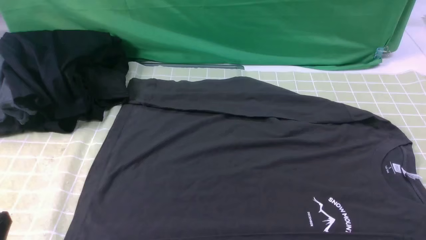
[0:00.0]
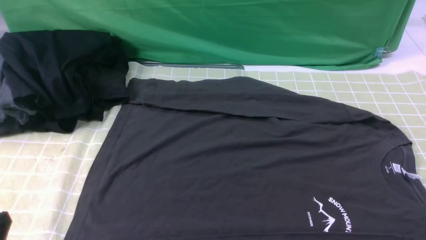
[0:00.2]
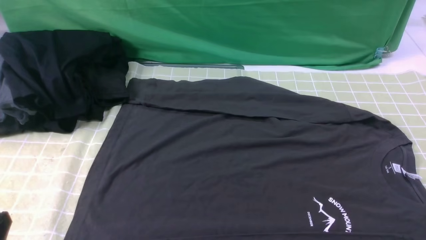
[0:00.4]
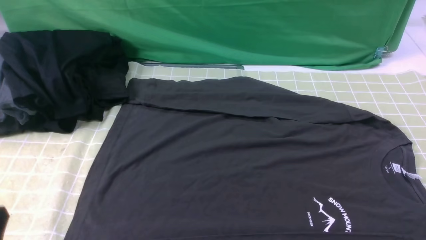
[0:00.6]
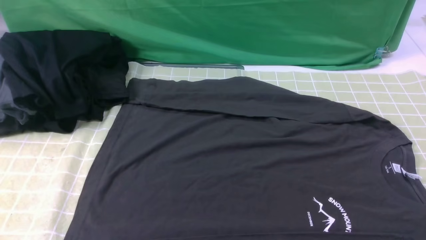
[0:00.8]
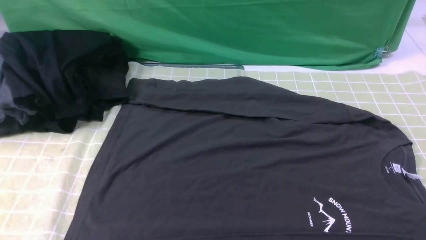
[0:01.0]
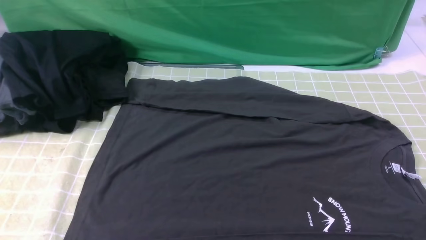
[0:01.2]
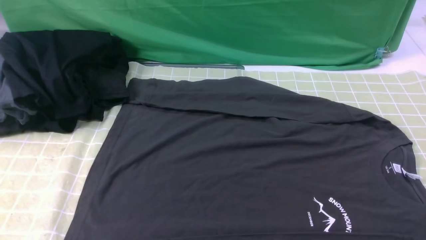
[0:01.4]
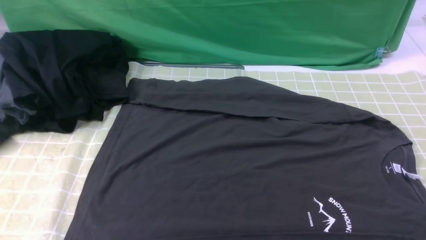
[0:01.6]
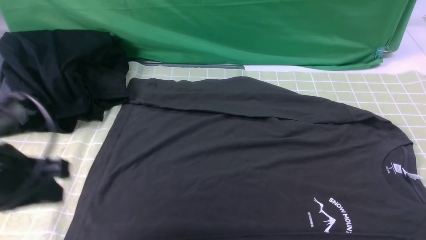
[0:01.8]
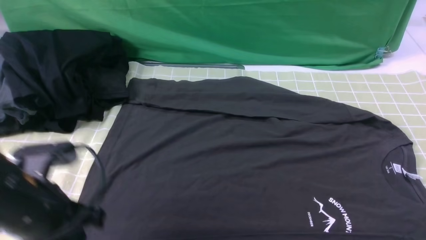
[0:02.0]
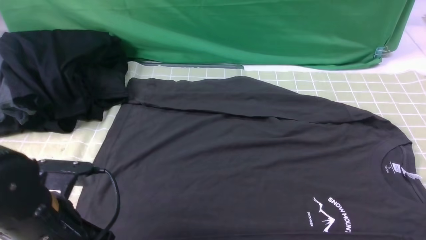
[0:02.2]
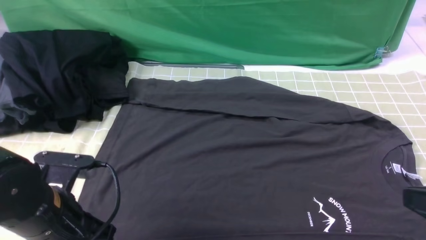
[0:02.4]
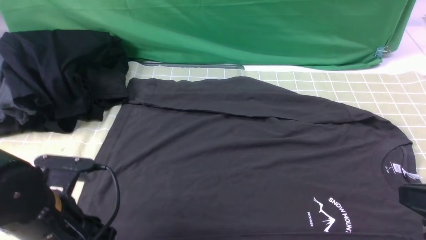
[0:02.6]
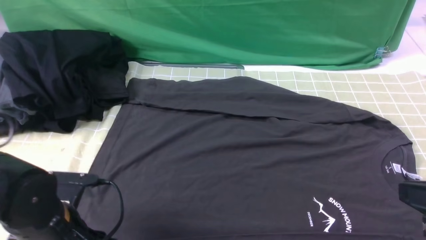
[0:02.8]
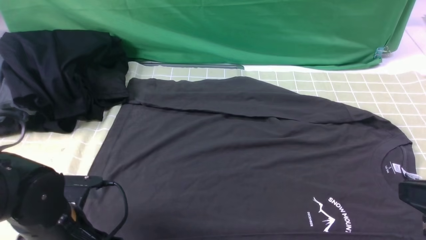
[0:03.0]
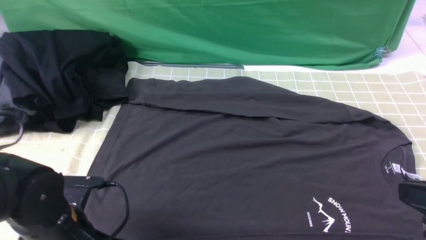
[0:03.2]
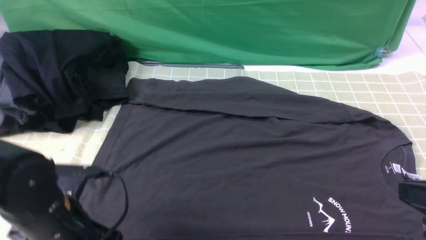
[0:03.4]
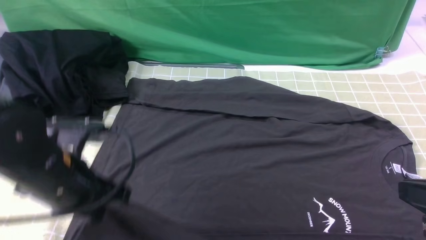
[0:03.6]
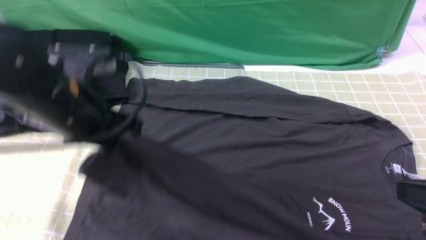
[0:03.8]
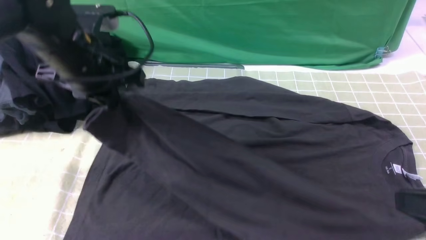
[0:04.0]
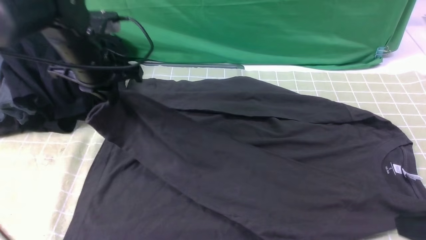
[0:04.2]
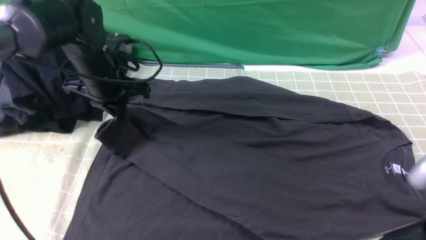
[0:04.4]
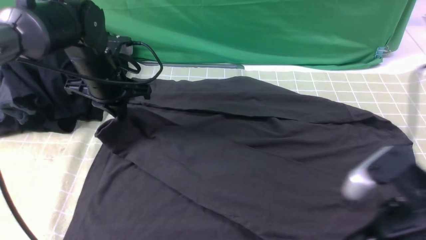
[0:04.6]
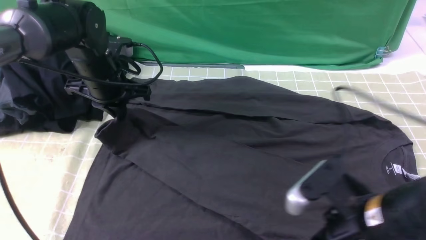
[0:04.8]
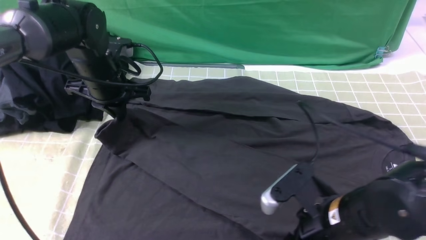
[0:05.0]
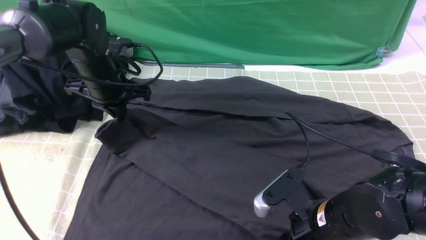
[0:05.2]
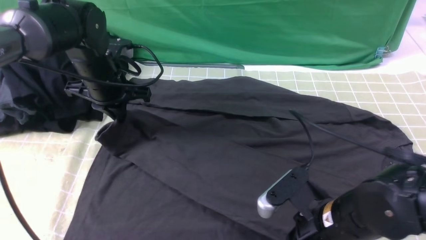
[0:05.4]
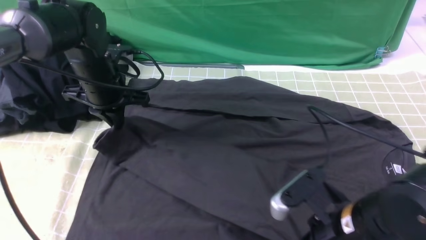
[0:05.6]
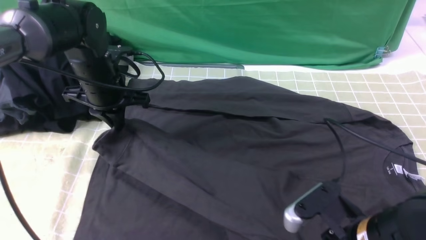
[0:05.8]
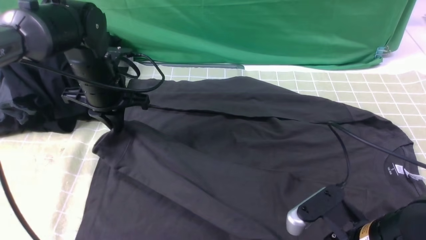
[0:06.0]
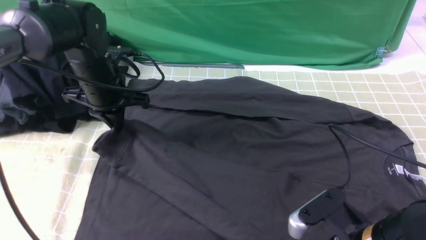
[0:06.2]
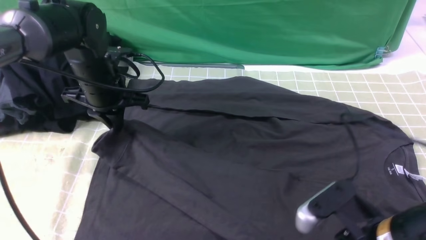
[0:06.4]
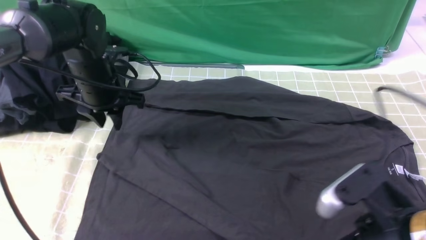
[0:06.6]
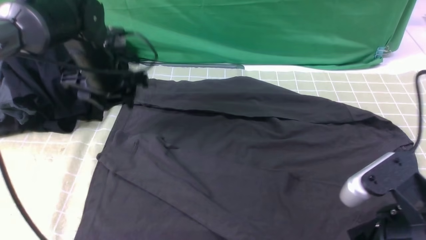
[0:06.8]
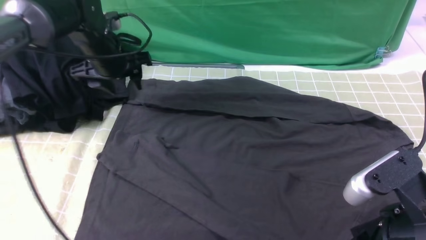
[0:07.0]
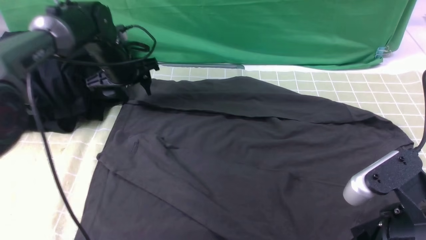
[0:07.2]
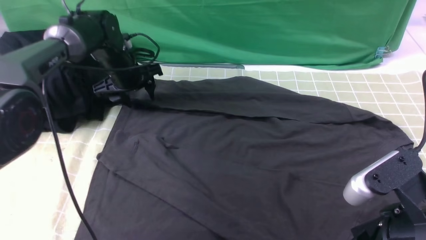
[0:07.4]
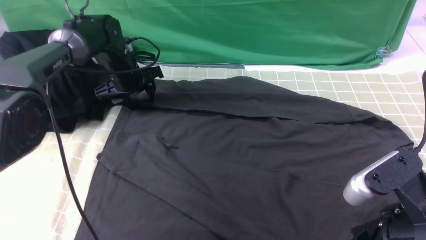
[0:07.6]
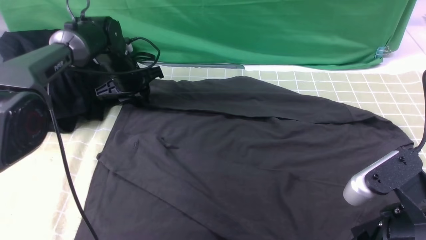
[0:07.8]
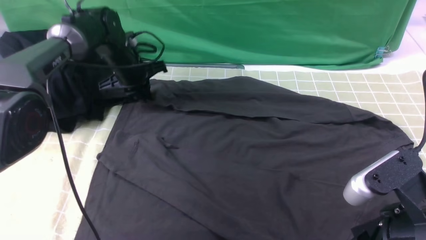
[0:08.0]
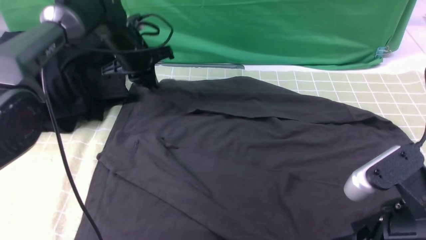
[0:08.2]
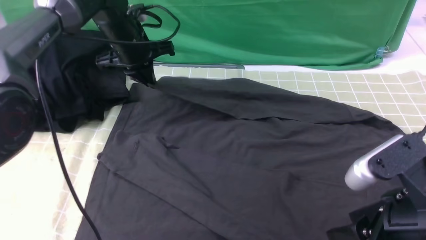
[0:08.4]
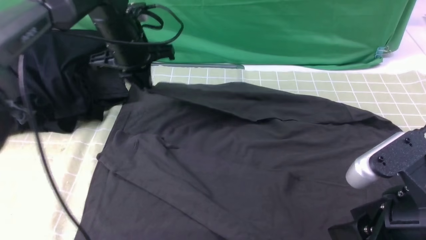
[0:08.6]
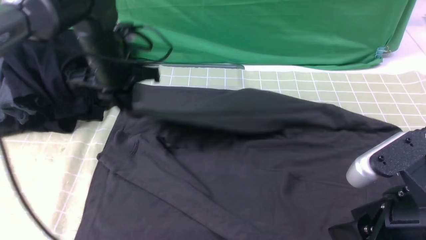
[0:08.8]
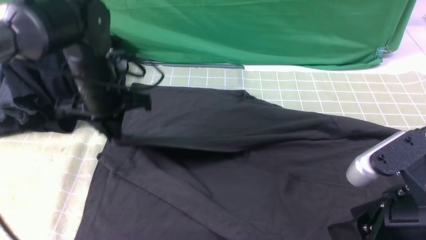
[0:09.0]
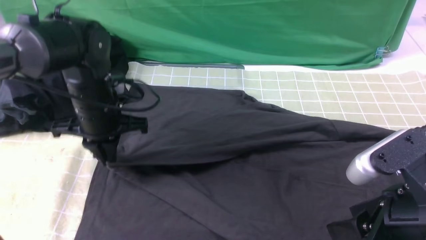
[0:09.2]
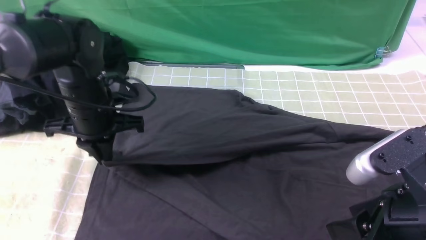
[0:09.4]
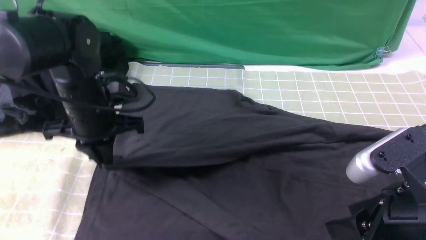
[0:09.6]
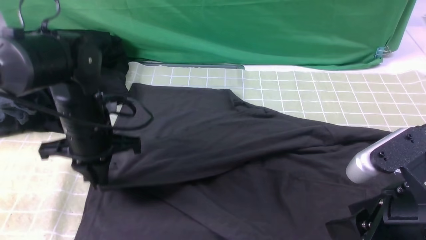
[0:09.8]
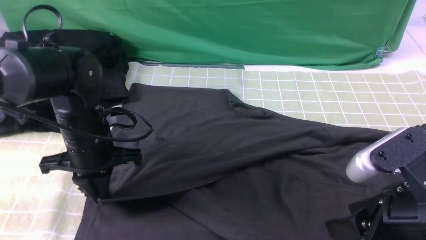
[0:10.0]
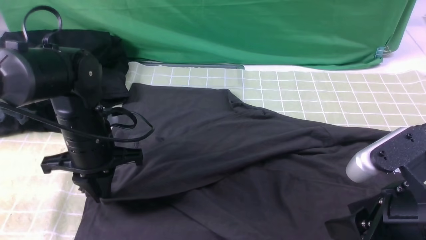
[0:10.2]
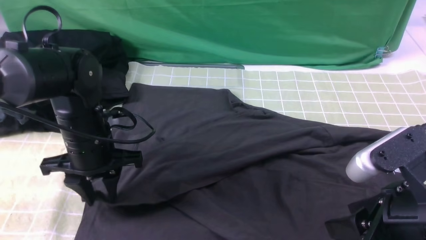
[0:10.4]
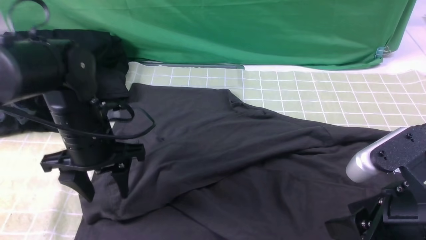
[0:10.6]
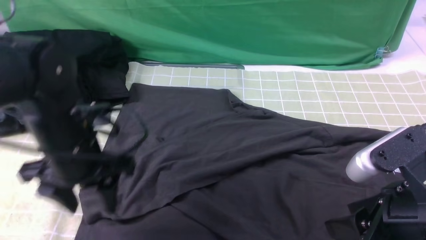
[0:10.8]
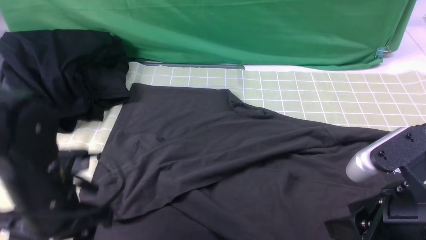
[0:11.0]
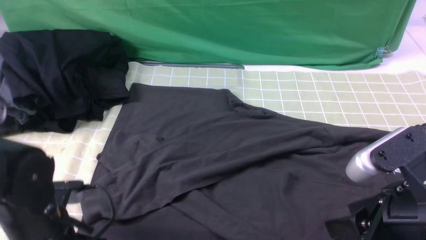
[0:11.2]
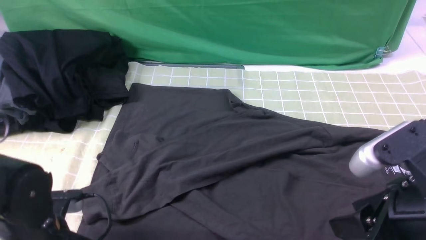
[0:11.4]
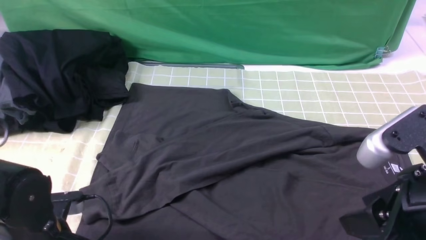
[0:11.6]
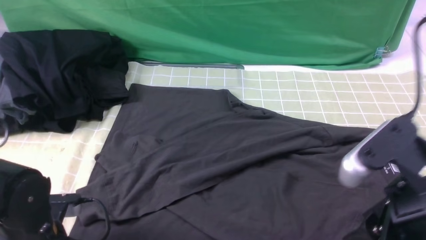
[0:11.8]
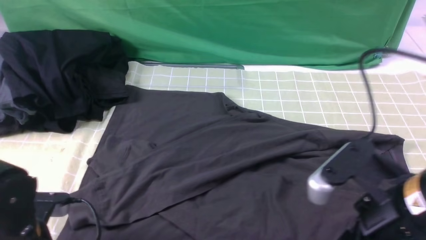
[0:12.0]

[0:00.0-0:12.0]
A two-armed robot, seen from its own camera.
Step, 0:00.0 to 0:03.2: use the left arm to clamp the cuff closest to it.
Step, 0:03.4 to 0:06.6: use the left arm to drag and place the cuff at the centered position on the left edge of the fabric.
Step, 0:06.8 to 0:07.8: use the left arm to clamp the cuff farthest from it.
Step, 0:08.0 to 0:10.4: use the left arm to drag and drop the cuff onto the cuff closest to the left arm.
0:01.6 to 0:03.0: The right gripper goes about 10 cm upward, forward and to the left, and closes its fingers; the left gripper is displaced downward by roughly 15 cm, and opens up.
0:03.0 to 0:04.4: The left gripper shifts some 20 cm forward, and closes.
0:04.4 to 0:06.0: The right gripper moves downward and to the left, about 10 cm, and opens, then closes once more.
0:06.0 to 0:07.6: The right gripper is displaced upward by roughly 10 cm, and opens; the left gripper moves forward and downward, some 10 cm, and opens its fingers.
0:07.6 to 0:09.0: The left gripper moves backward and upward, roughly 15 cm, and closes up.
0:09.0 to 0:10.4: The left gripper is displaced backward by approximately 5 cm, and opens.
0:10.4 to 0:12.0: The left gripper goes roughly 15 cm backward, and closes.

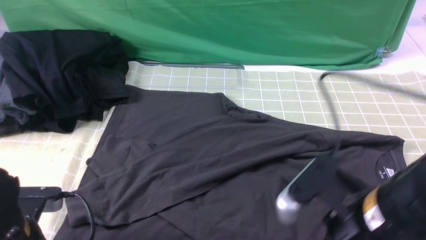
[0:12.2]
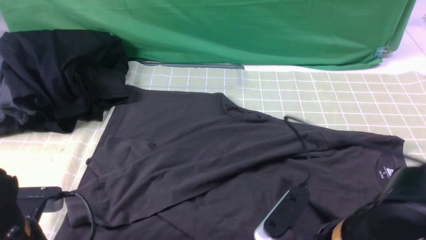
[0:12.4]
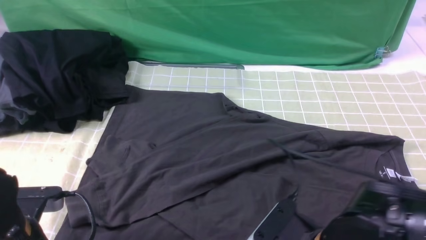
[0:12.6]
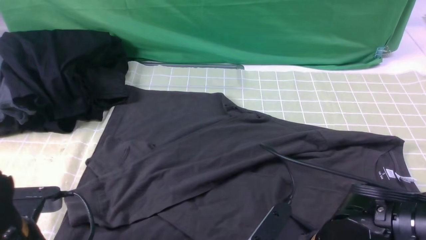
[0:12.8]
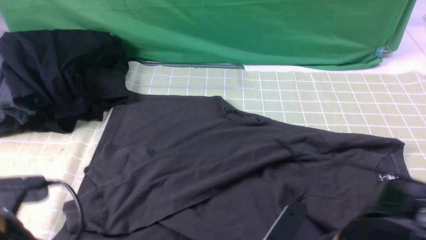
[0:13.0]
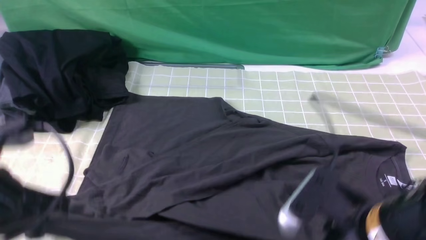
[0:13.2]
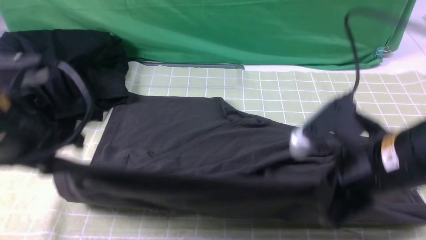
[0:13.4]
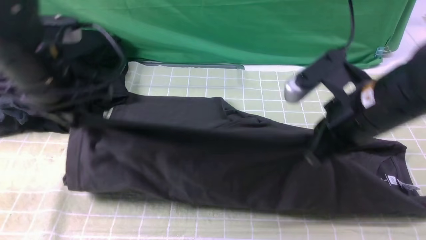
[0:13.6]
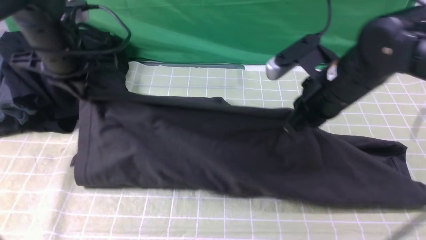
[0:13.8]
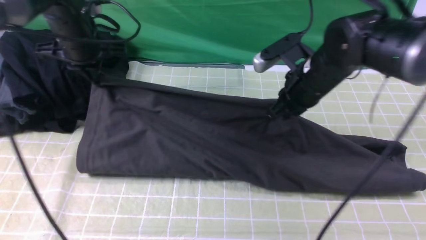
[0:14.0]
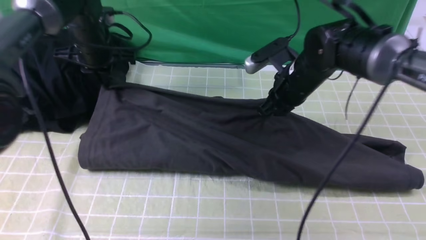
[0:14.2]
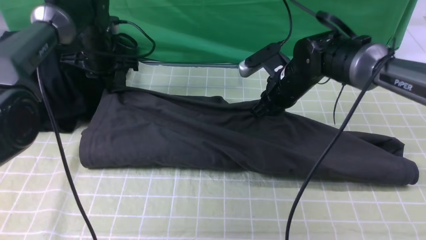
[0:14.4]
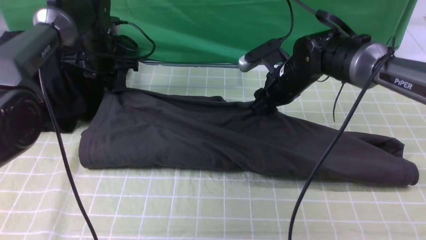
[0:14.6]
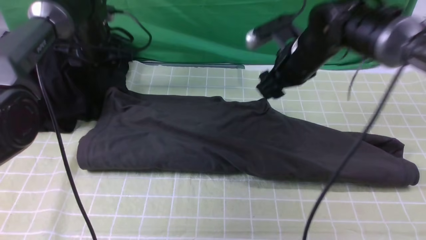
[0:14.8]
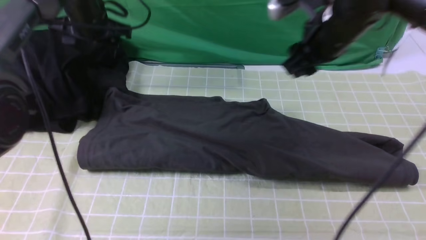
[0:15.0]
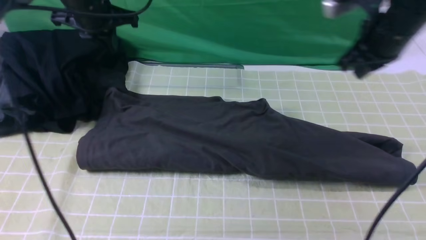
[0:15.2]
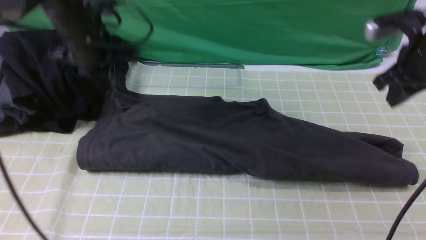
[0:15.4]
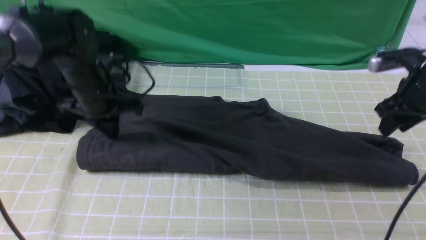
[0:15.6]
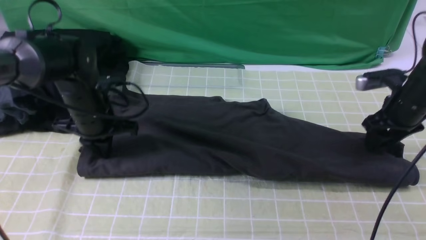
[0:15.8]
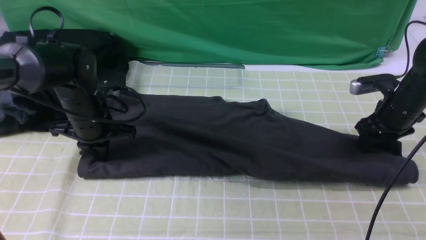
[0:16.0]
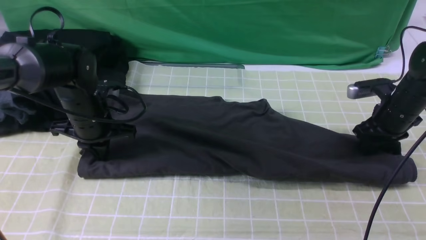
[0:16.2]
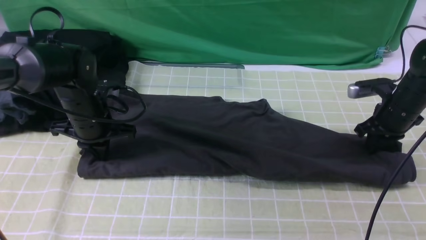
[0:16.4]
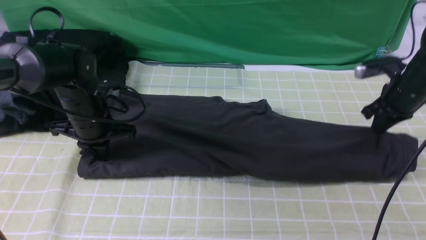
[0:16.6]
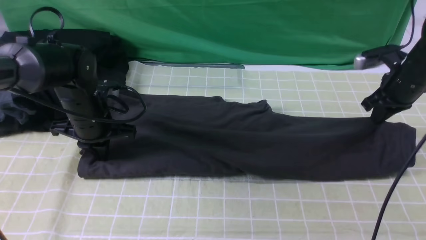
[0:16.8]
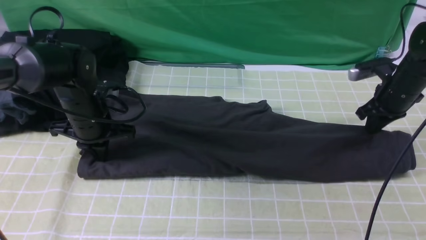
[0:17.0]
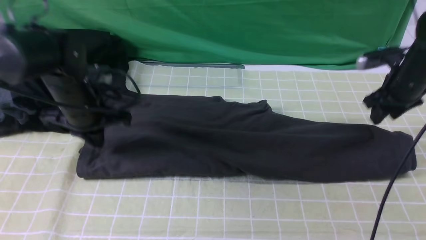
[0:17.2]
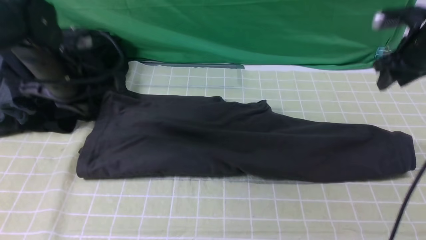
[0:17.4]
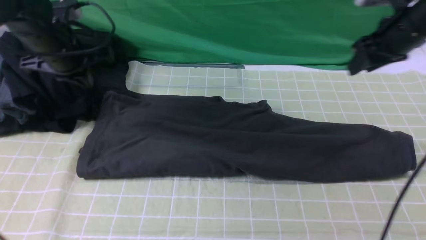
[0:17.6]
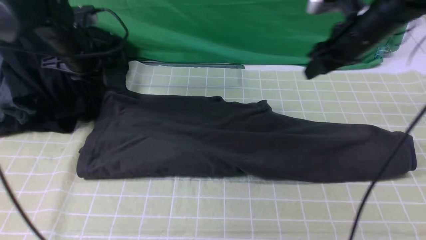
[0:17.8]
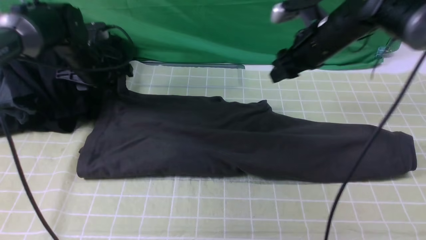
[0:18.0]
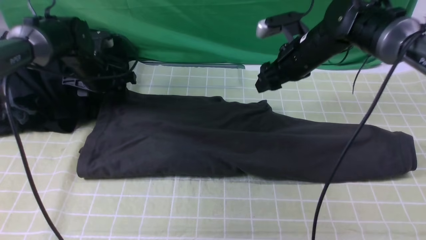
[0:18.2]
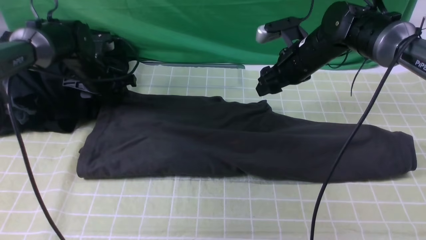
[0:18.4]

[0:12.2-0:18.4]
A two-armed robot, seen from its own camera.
0:12.2 to 0:13.8: The left gripper is displaced forward and upward by about 25 cm. The right gripper is displaced forward by about 20 cm, and closes.
0:13.8 to 0:15.4: The left gripper reaches about 10 cm forward, then returns, and opens, then closes again; the right gripper goes roughly 15 cm to the right and forward, and opens, then closes again.
0:15.4 to 0:16.8: Both grippers move downward, roughly 10 cm. The right gripper opens and closes again.
0:16.8 to 0:18.4: The left gripper is displaced forward by about 10 cm, and opens its fingers, while the right gripper travels to the left by about 20 cm, and opens up.
